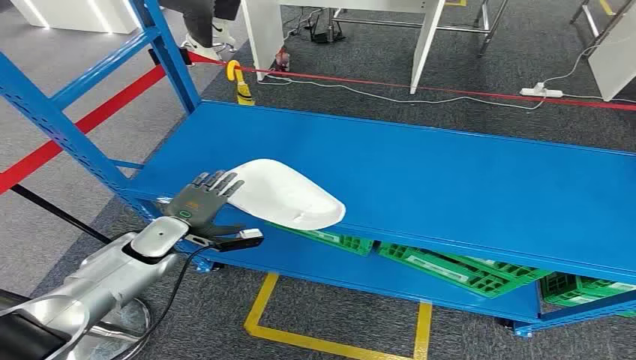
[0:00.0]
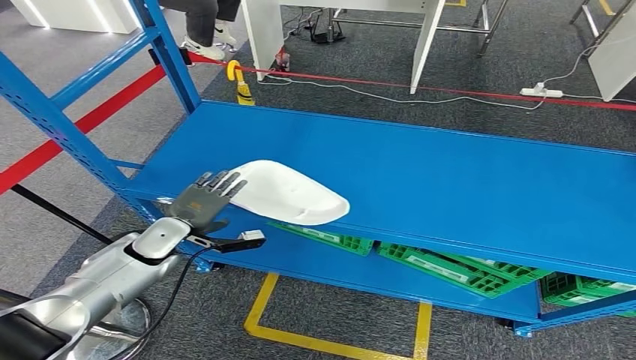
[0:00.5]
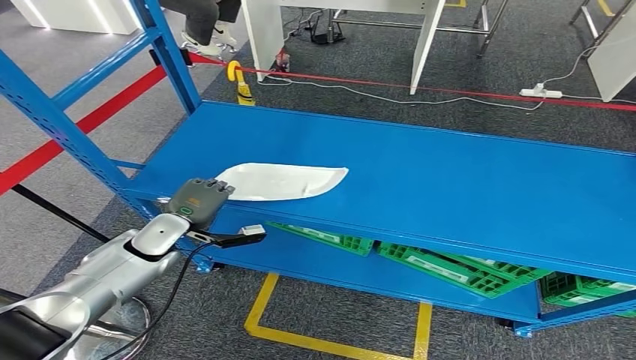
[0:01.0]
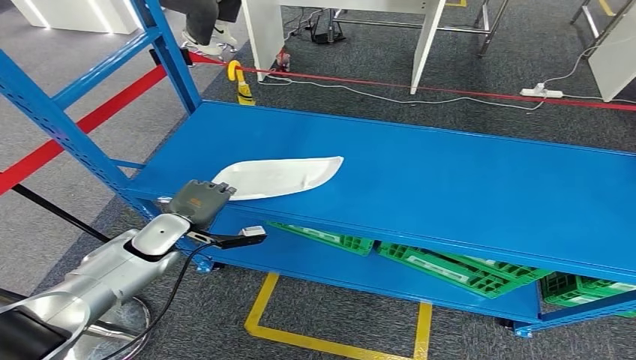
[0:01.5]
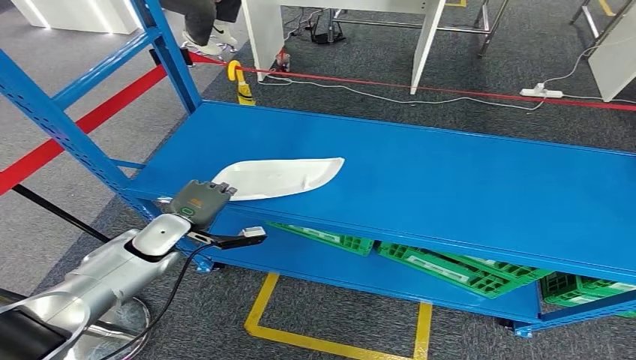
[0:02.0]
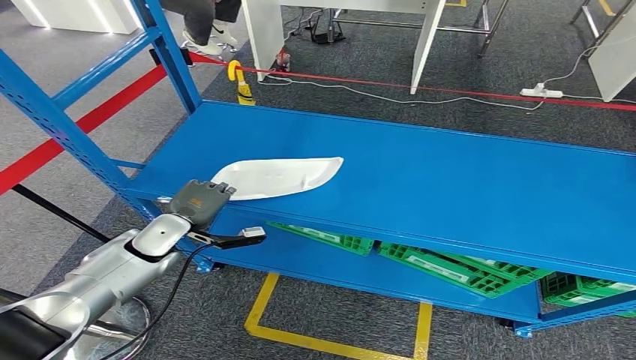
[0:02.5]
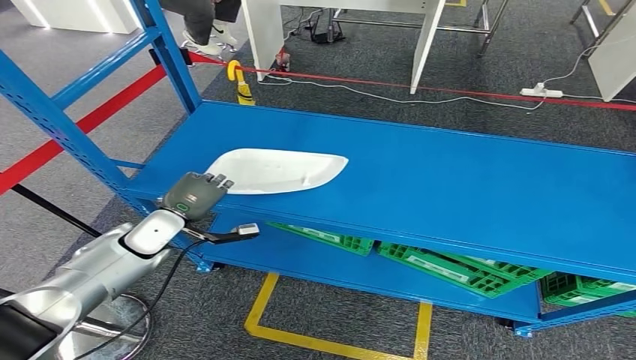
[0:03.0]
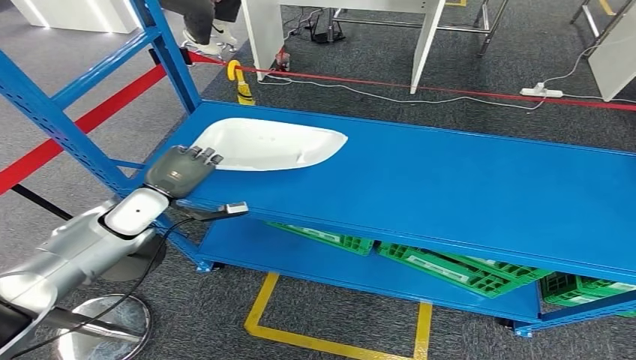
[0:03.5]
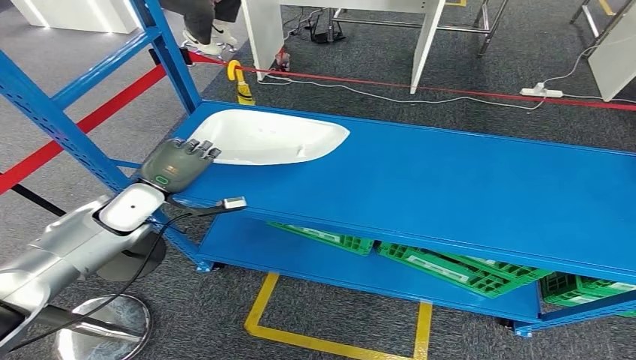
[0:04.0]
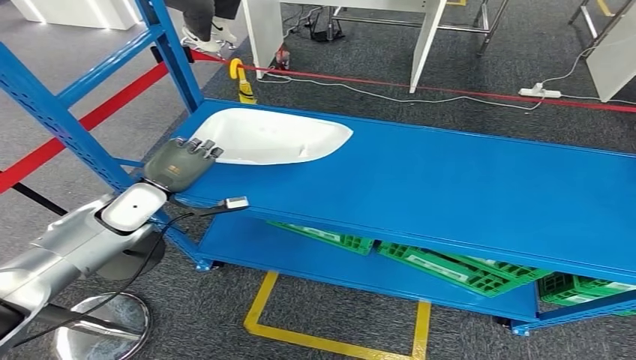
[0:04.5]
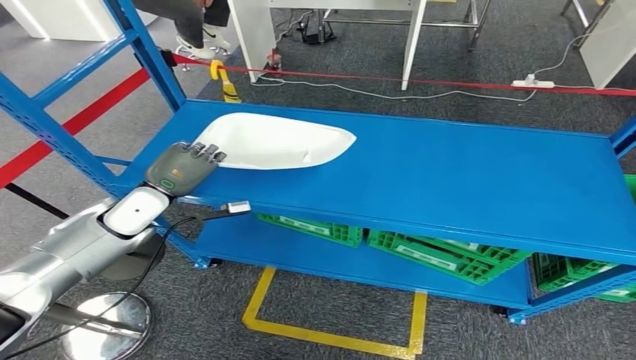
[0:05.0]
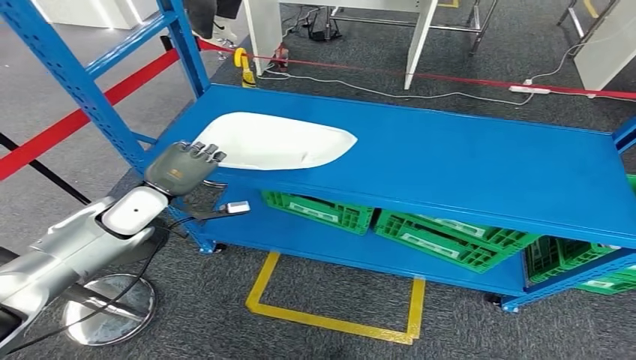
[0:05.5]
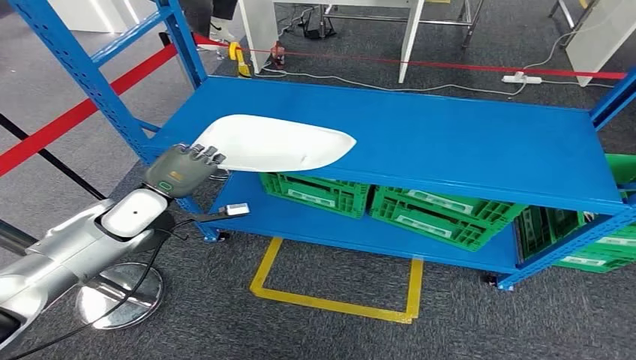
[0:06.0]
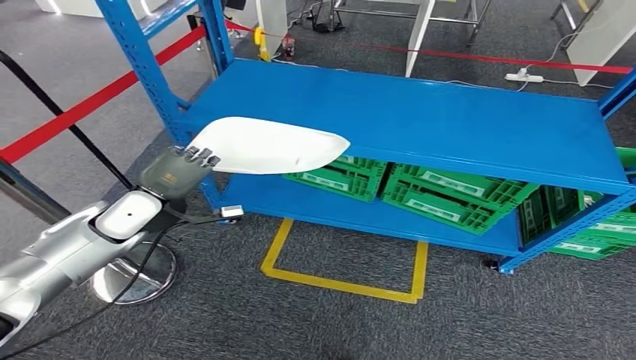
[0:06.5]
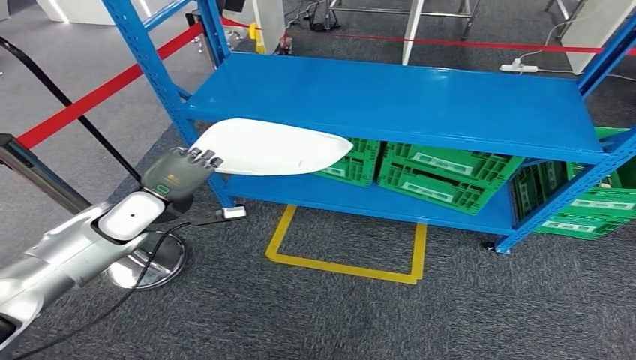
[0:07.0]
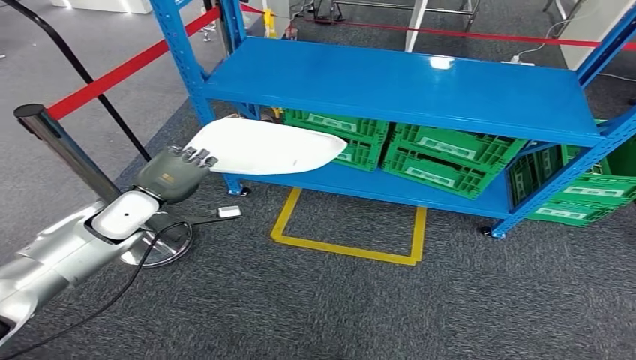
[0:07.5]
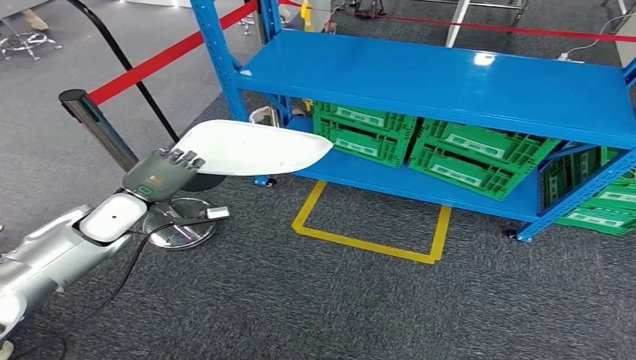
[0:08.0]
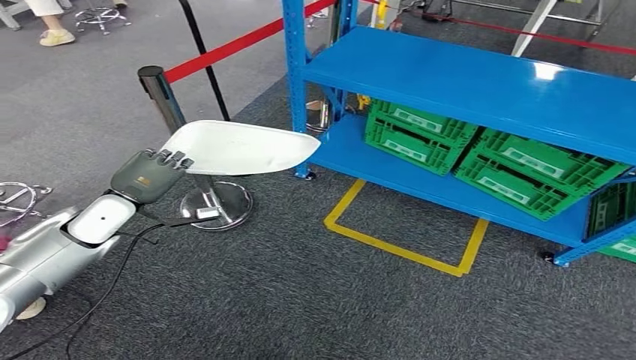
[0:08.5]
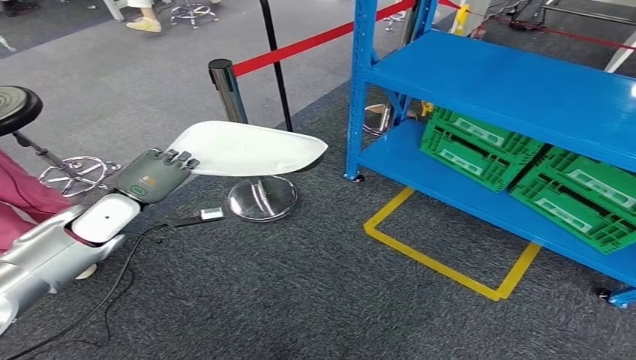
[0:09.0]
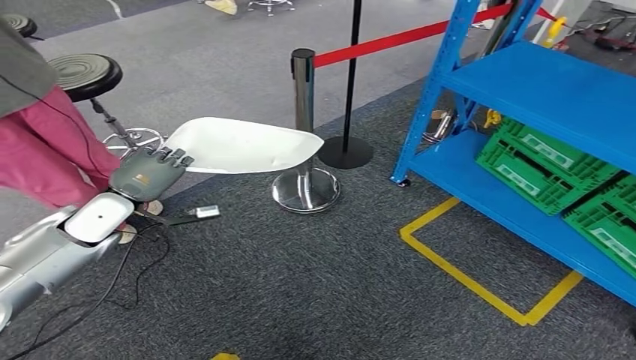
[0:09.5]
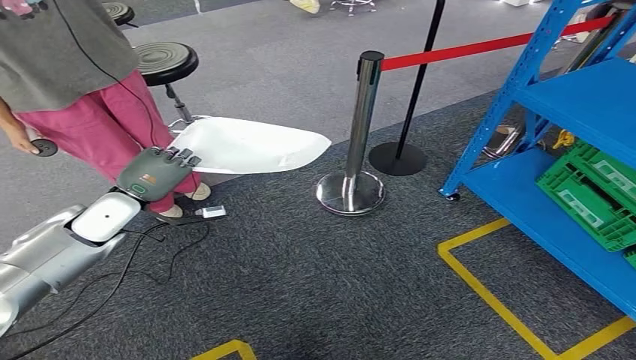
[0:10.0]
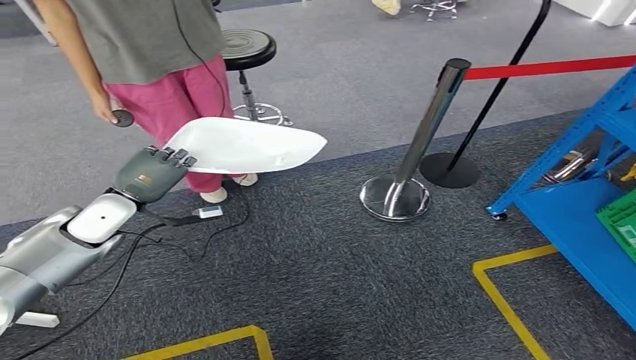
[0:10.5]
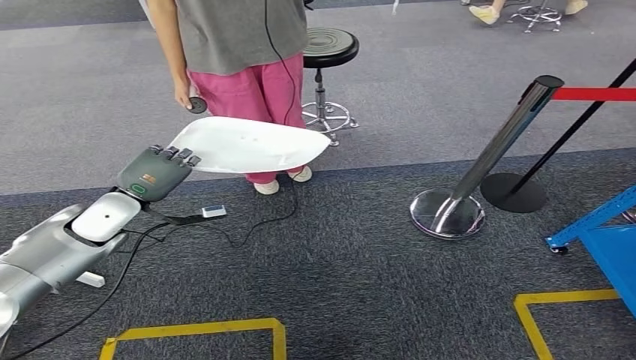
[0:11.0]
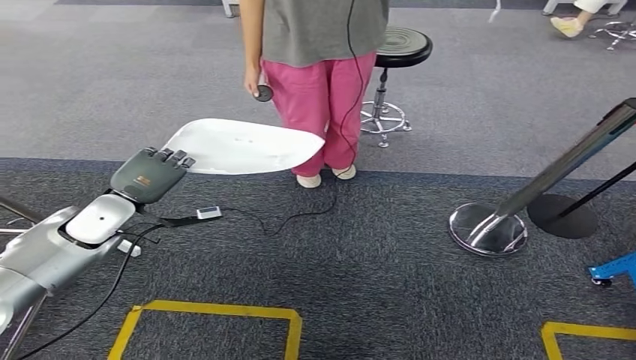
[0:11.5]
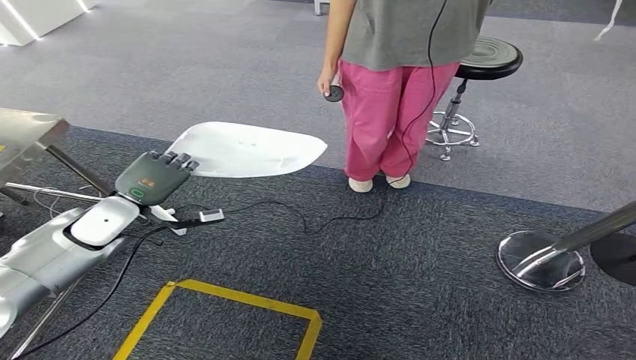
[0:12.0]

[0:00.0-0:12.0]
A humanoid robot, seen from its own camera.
Step, 0:00.0 to 0:05.5: Pick up the small component from the shelf.
0:02.0 to 0:04.0: The left hand travels upward by about 5 cm.

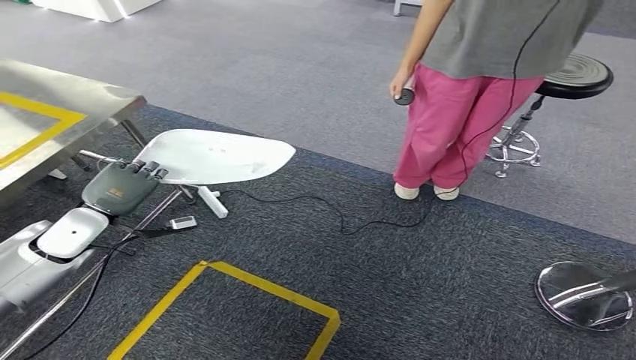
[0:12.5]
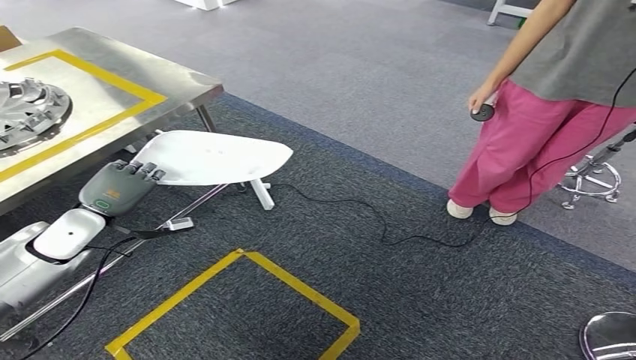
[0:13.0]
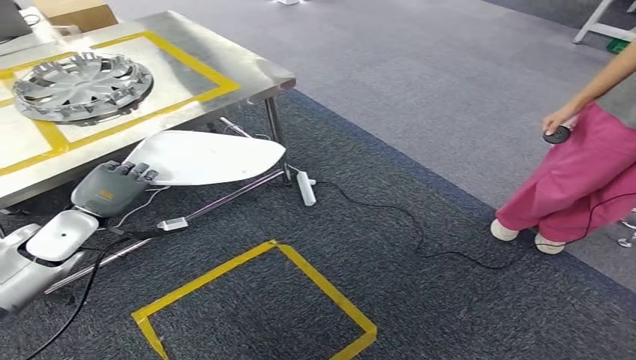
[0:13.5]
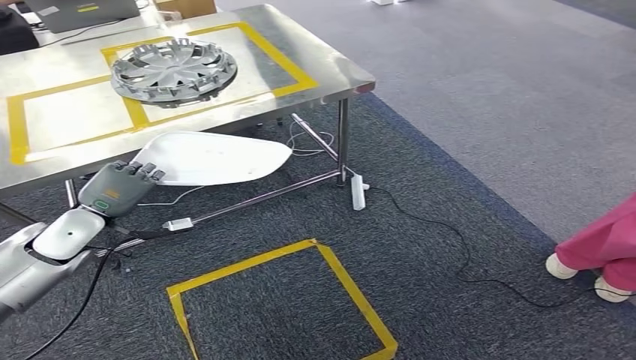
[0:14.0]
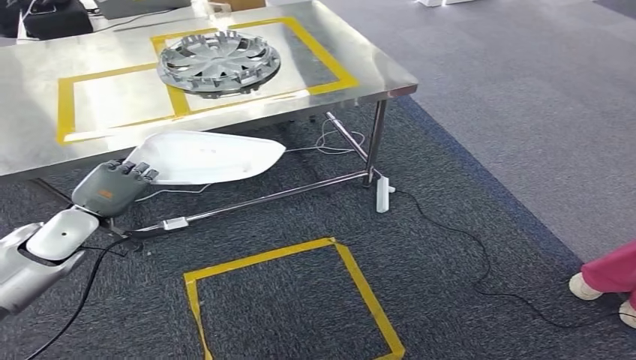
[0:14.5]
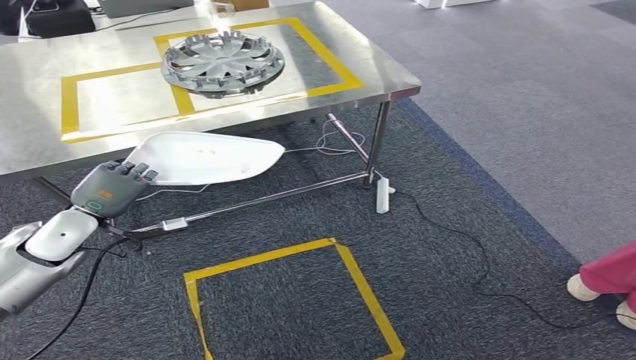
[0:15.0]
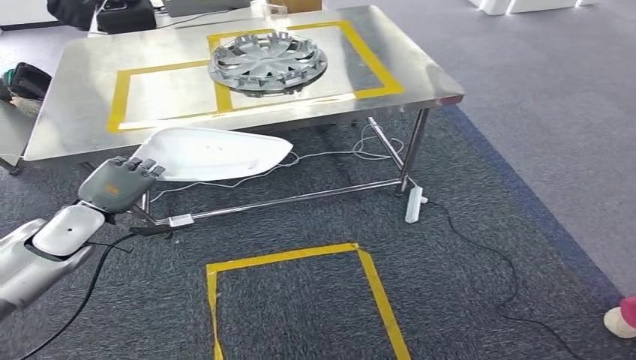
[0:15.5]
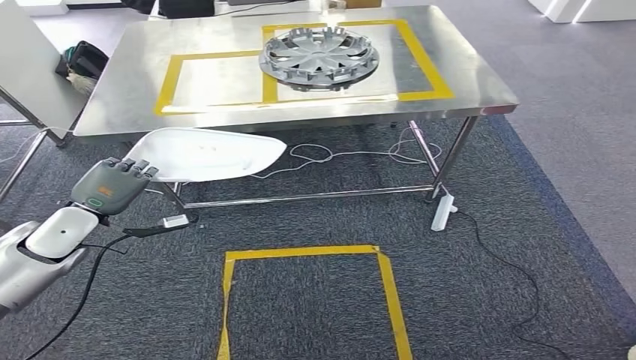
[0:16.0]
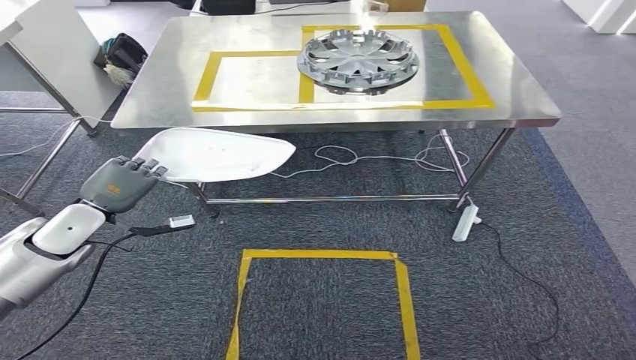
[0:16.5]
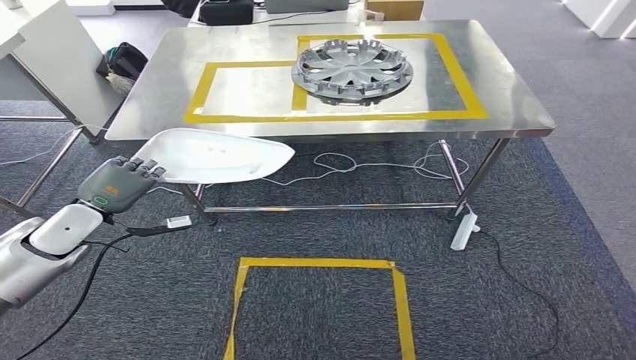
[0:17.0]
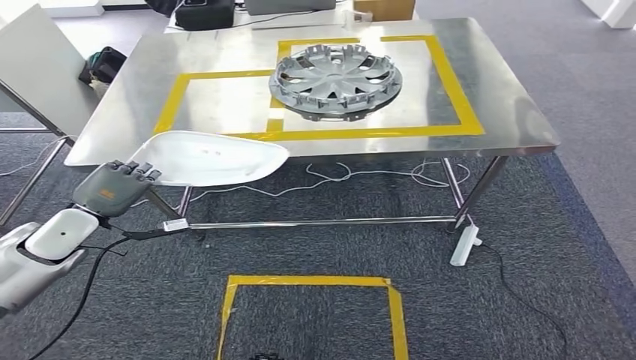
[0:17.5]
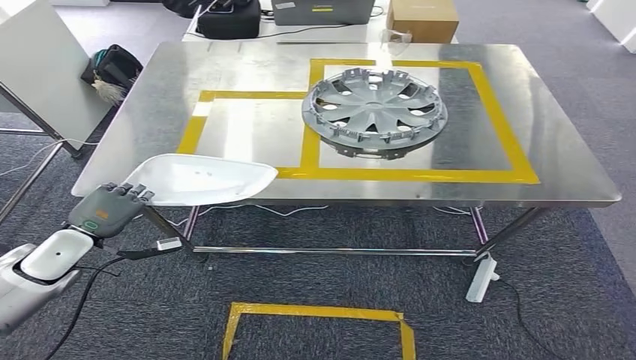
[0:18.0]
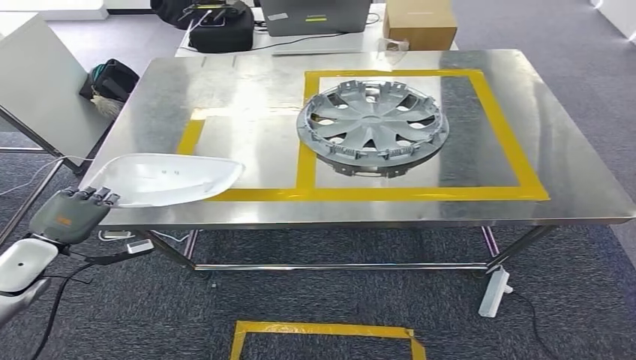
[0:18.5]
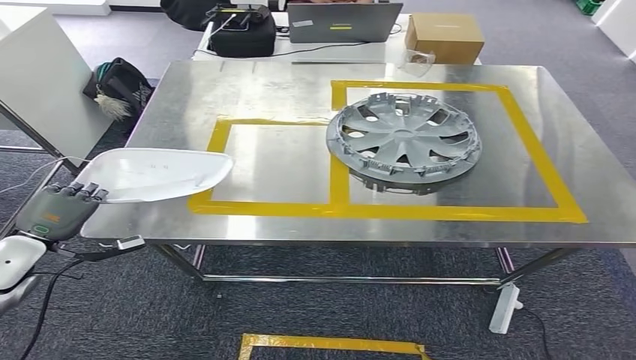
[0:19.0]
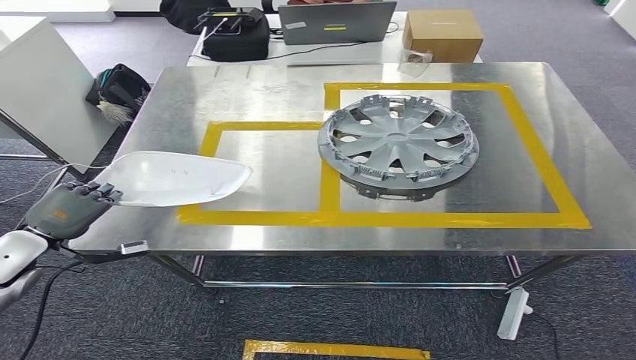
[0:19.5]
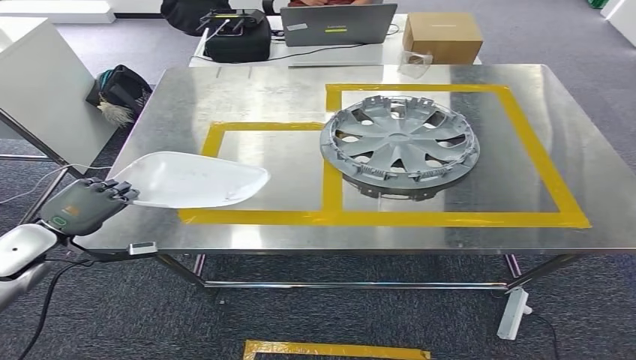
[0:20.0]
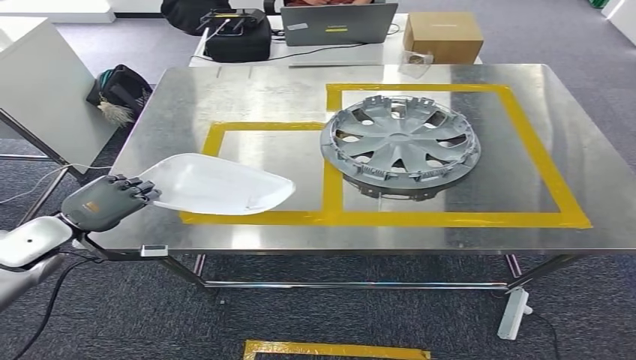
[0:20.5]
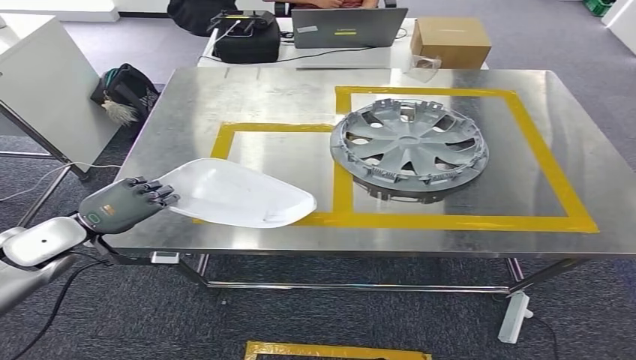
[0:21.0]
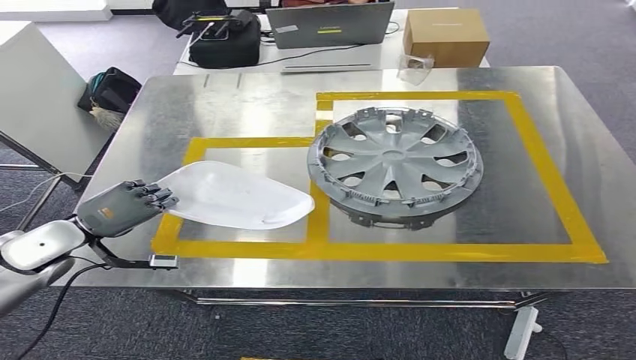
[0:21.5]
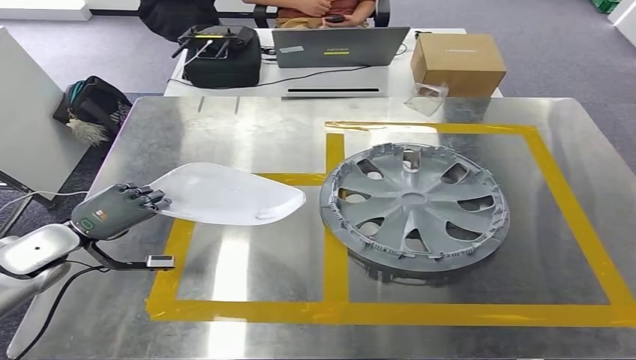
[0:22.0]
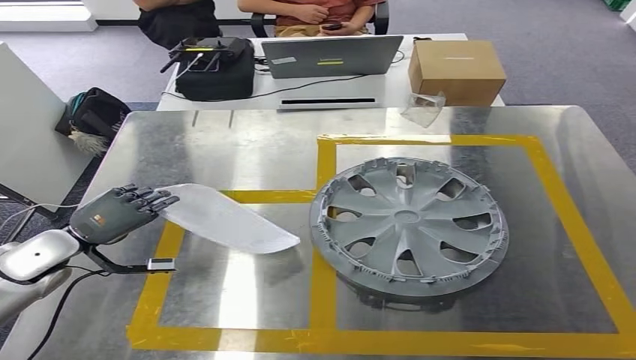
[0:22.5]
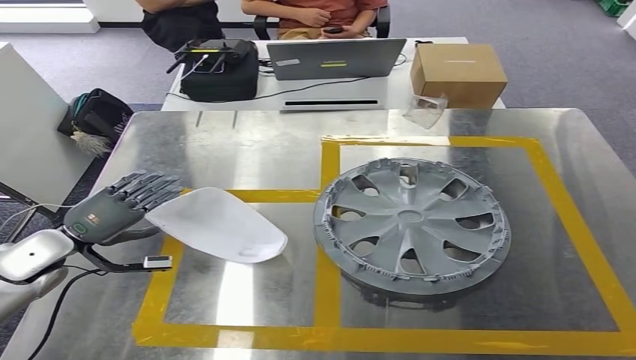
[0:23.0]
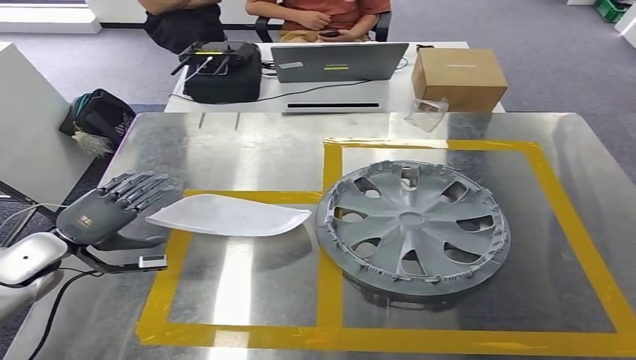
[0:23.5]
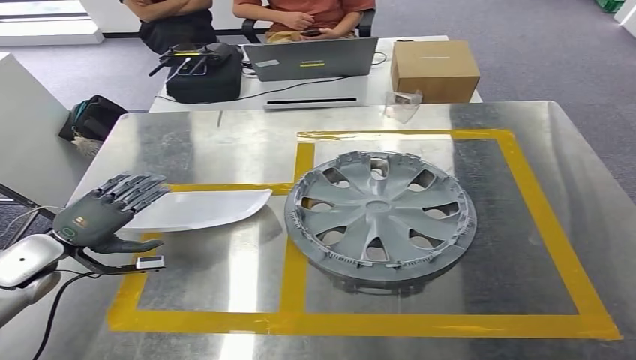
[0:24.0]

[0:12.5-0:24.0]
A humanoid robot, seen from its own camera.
Step, 0:12.5 to 0:19.0: Move the small component to the workbench.
